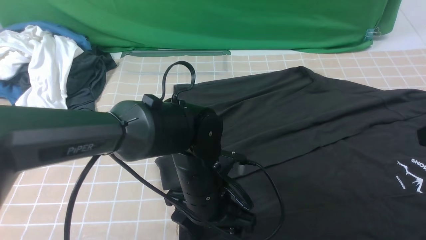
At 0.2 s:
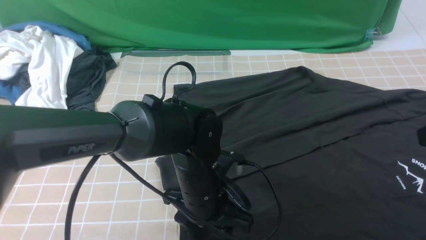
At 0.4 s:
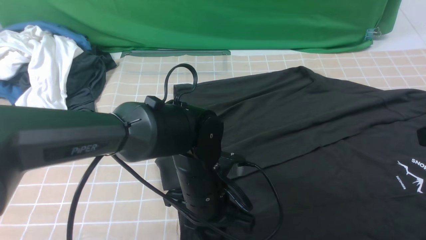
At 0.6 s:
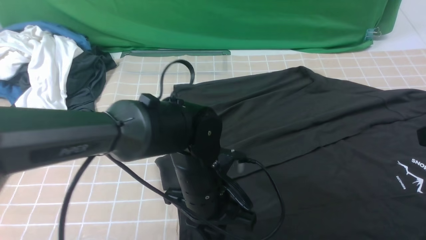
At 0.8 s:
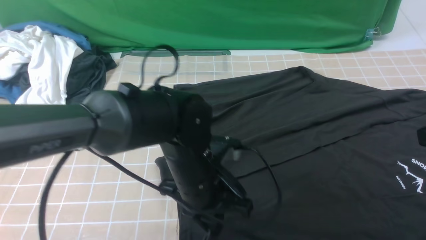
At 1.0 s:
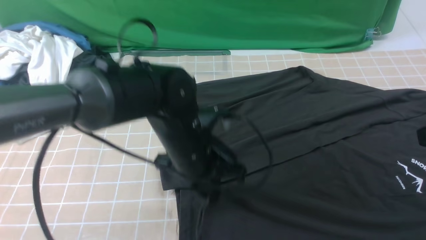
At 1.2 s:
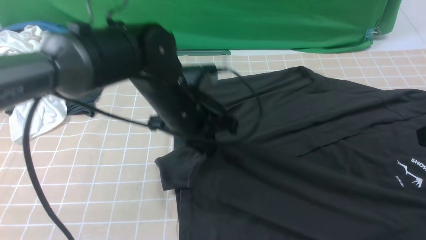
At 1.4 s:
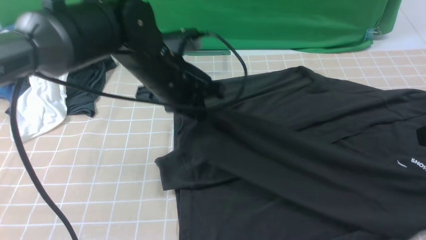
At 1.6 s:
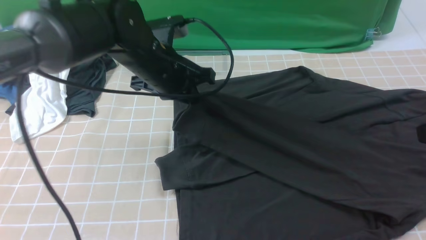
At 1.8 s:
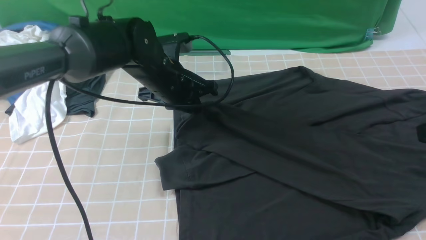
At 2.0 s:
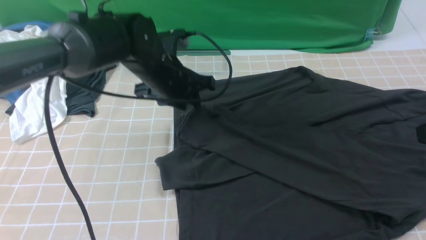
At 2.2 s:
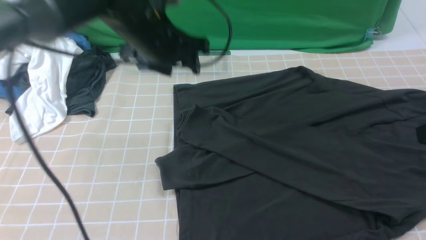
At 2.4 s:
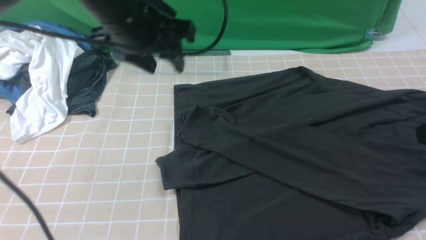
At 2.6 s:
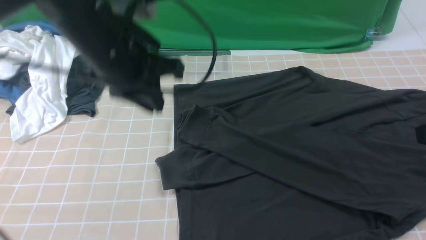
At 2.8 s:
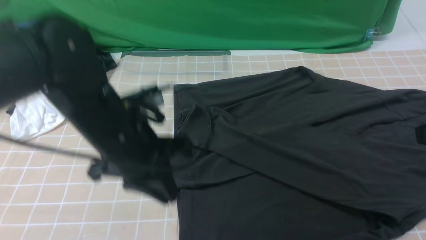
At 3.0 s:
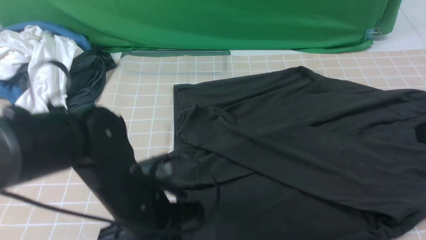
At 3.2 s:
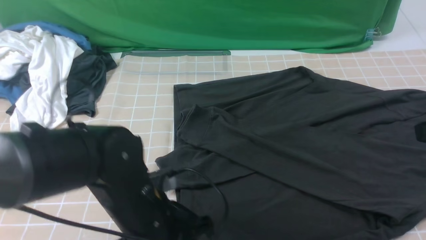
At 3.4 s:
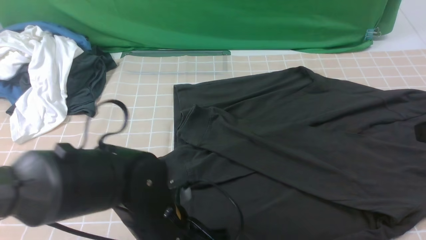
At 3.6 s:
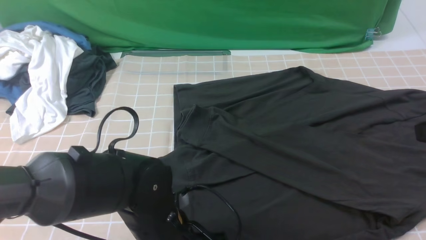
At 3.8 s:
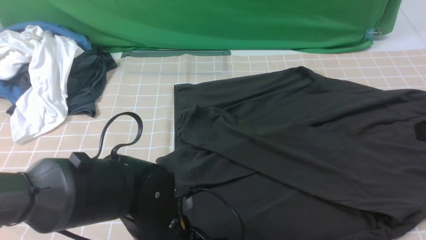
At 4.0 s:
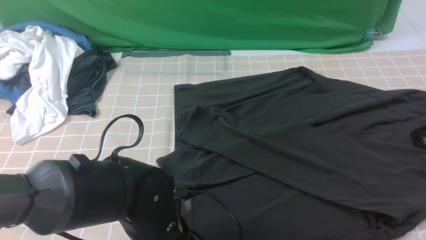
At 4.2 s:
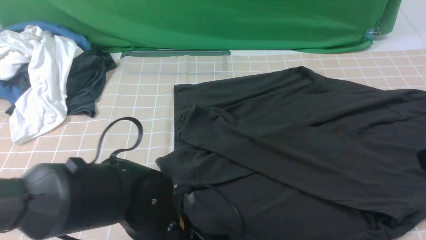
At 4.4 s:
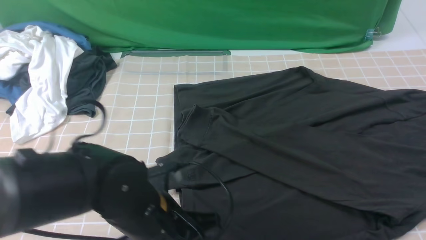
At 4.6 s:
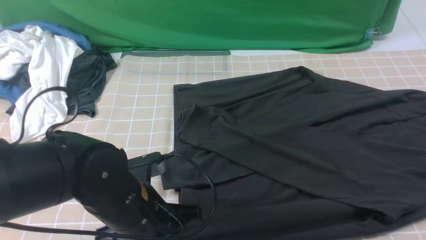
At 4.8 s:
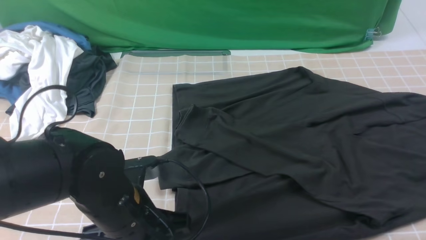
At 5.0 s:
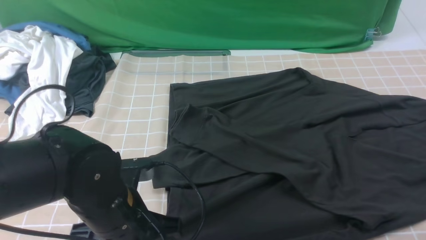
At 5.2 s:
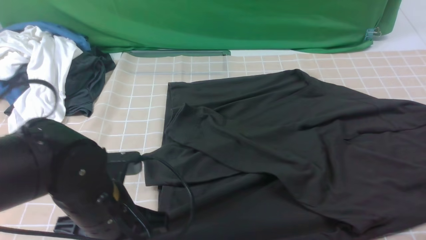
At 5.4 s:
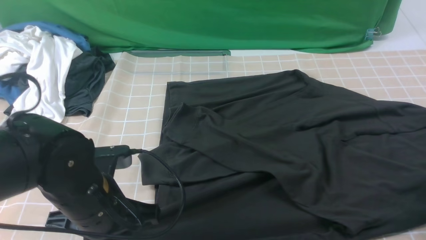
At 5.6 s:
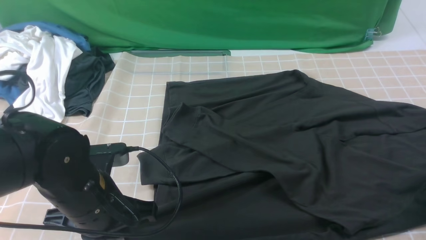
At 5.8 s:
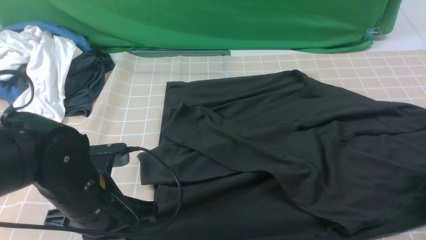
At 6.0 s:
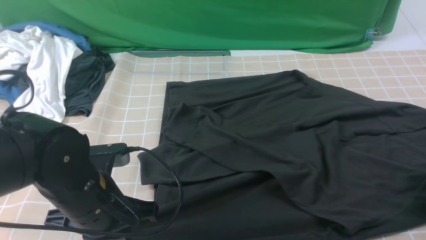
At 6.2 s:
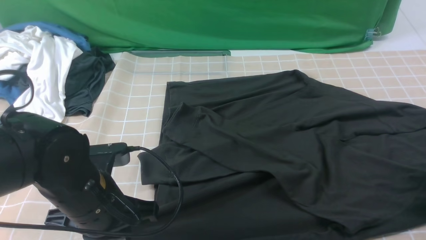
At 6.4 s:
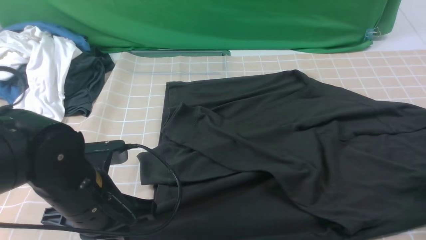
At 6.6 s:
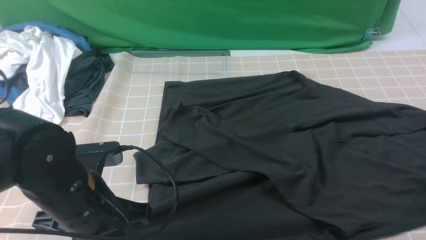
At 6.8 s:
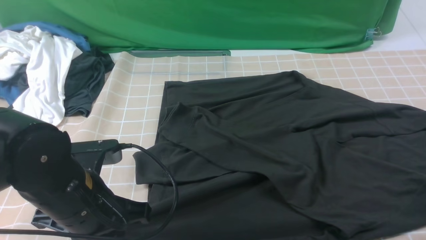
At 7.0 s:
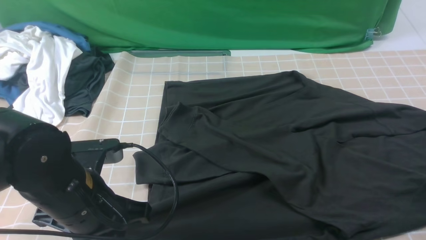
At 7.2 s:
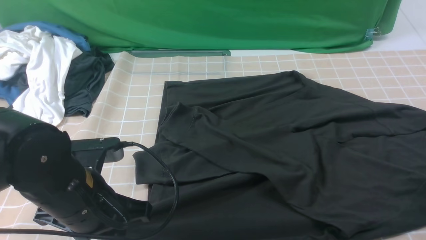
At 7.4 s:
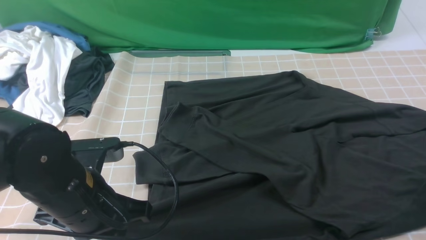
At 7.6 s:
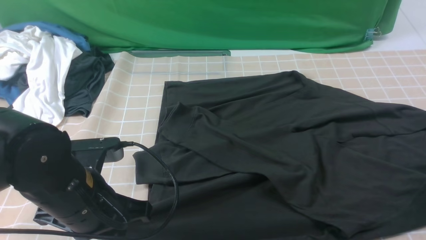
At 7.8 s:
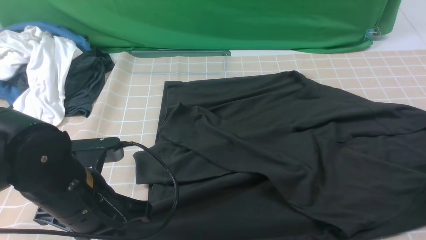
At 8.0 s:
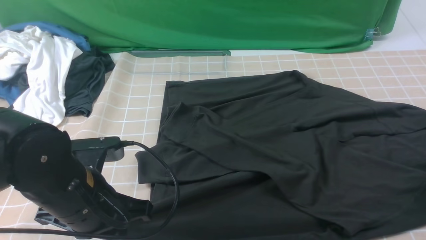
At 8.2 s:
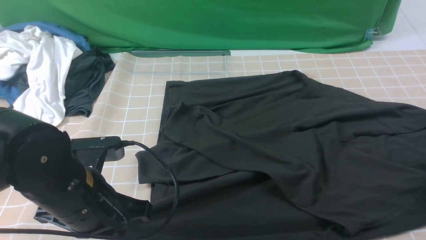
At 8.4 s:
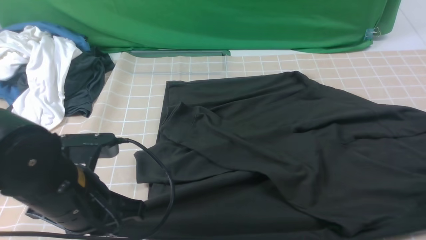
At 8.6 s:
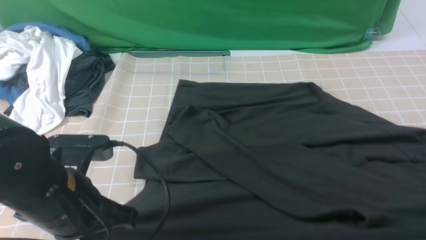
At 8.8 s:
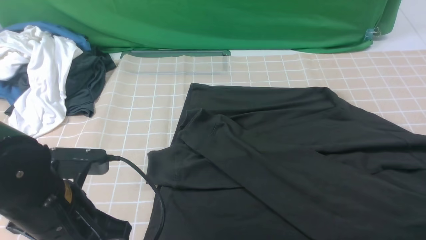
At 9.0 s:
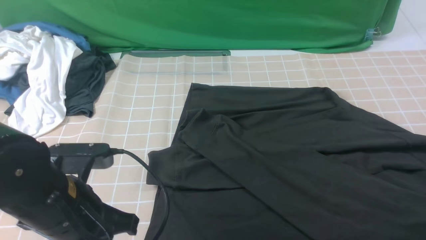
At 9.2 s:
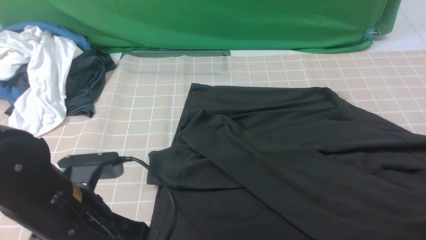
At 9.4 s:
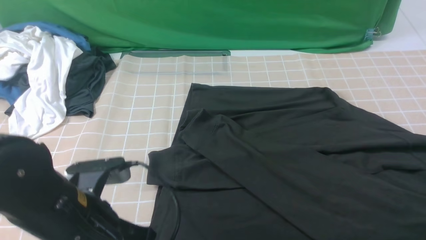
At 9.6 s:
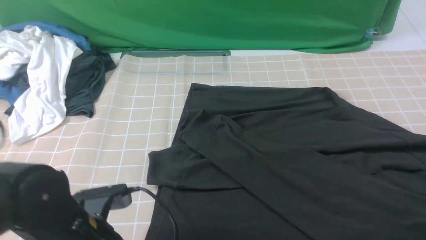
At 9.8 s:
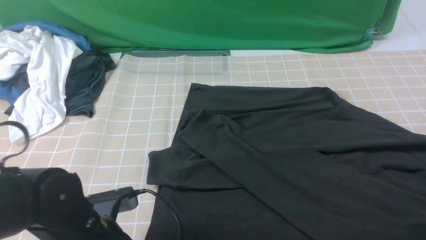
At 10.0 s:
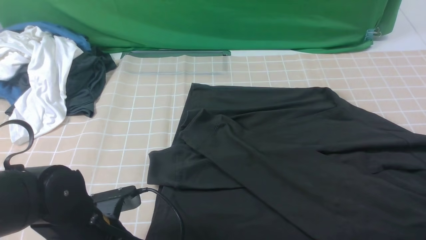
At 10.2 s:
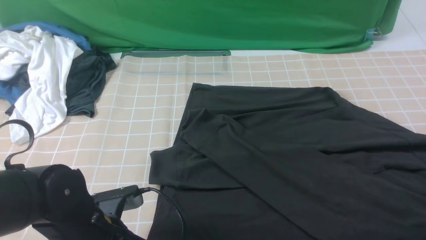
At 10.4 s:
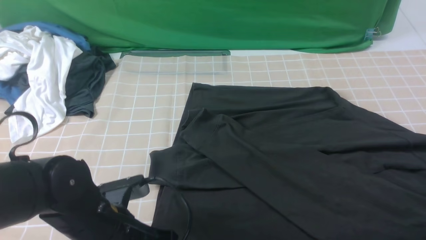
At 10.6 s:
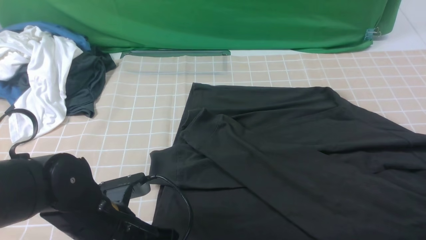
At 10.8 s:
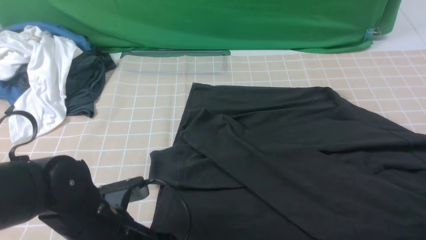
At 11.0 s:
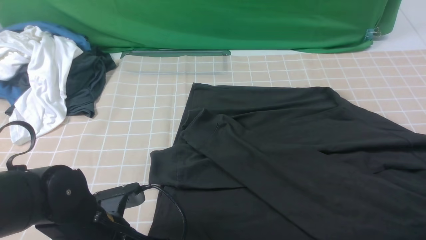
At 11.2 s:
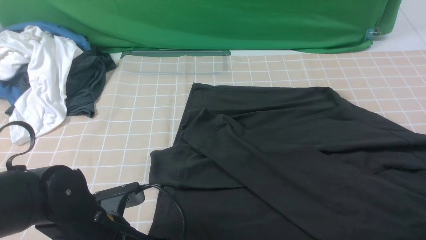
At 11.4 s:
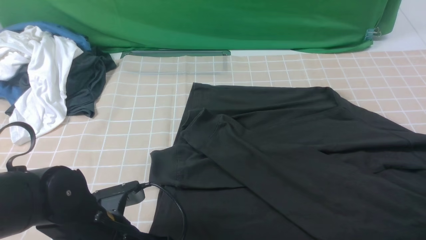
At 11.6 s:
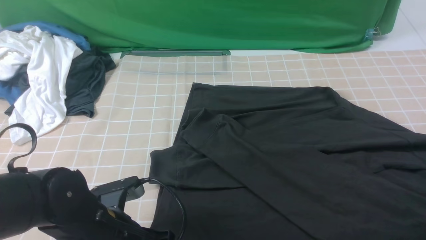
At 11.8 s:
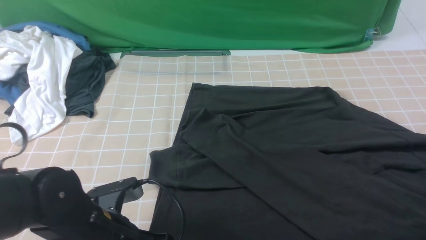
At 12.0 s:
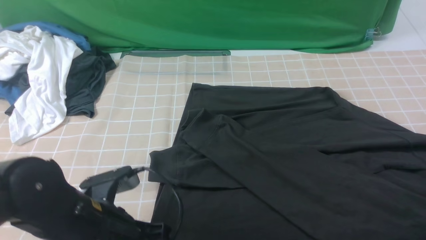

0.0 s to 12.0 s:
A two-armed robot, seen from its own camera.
Step, 0.6 to 1.8 s: use the left arm to drag and drop the cuff onto the cuff closest to the left arm.
Step, 2.0 to 11.8 s: use both arms simultaneously to clamp the lower edge of the clothing fabric.
0.0 to 1.6 s: The left gripper moves forward, upward and to the left, roughly 20 cm, and closes up.
1.6 to 3.0 s: The left gripper shifts some 15 cm backward.
3.0 to 4.4 s: The right gripper opens its fingers; the left gripper opens, then closes again.
4.4 to 6.0 s: The right gripper is displaced downward, to the right and forward by some 20 cm; the left gripper is displaced to the left by about 5 cm.
6.0 to 7.6 s: The right gripper ends up some 5 cm from where it was, and closes, then reopens.
7.6 to 9.0 s: The right gripper goes approximately 5 cm backward, and closes.
9.0 to 10.4 s: The left gripper heads downward, covering approximately 5 cm, and opens up.
10.4 to 12.0 s: The left gripper closes.

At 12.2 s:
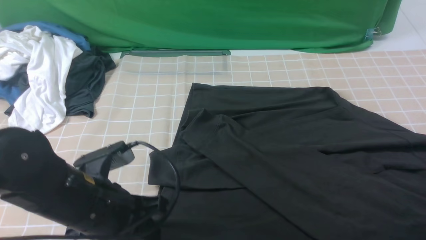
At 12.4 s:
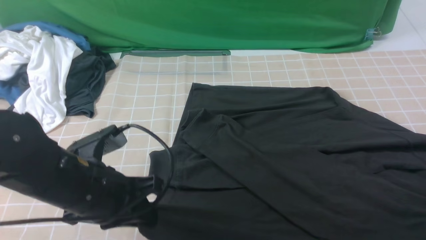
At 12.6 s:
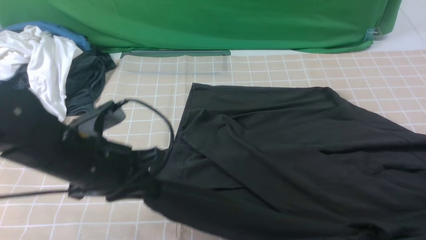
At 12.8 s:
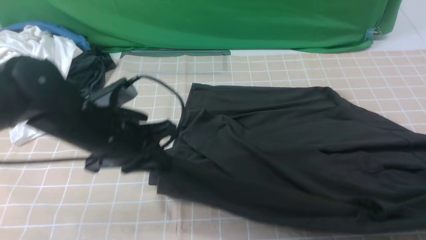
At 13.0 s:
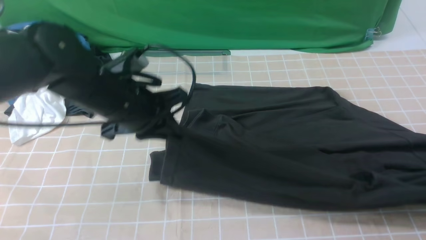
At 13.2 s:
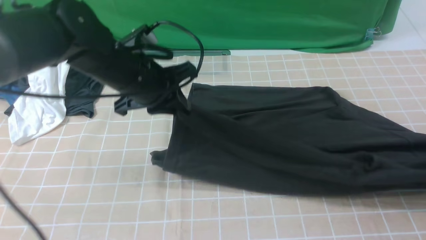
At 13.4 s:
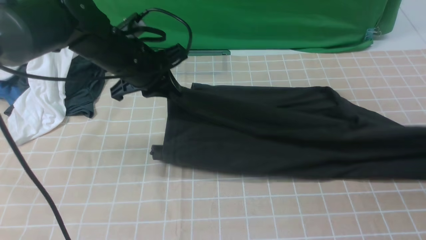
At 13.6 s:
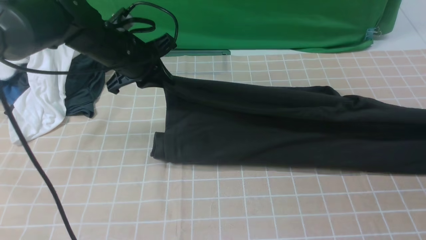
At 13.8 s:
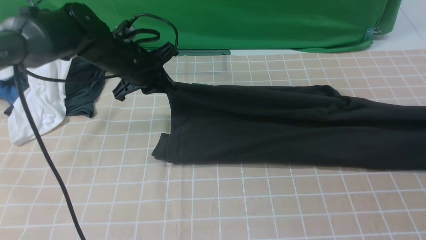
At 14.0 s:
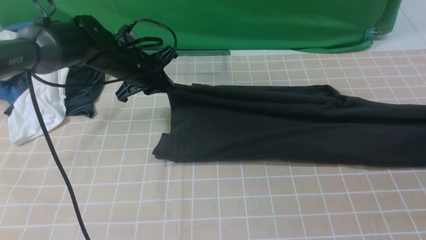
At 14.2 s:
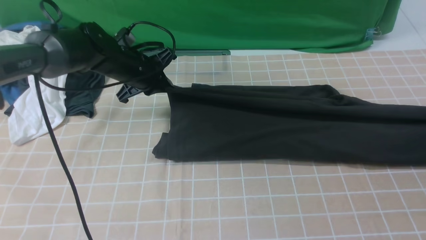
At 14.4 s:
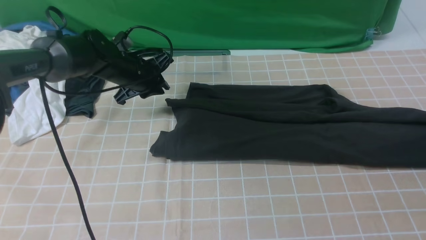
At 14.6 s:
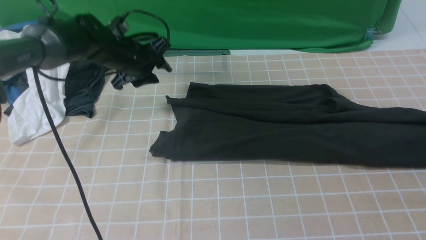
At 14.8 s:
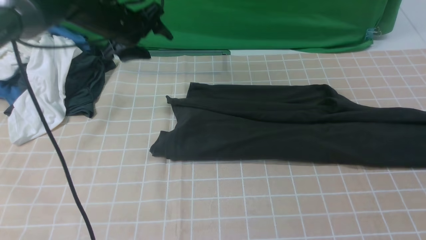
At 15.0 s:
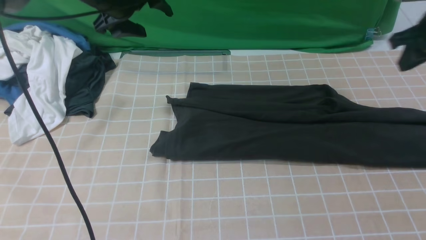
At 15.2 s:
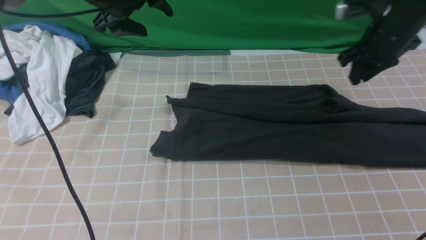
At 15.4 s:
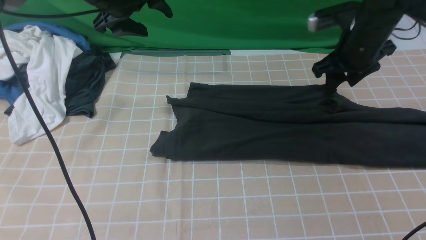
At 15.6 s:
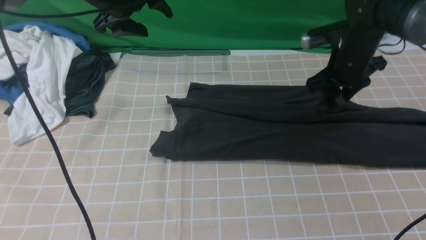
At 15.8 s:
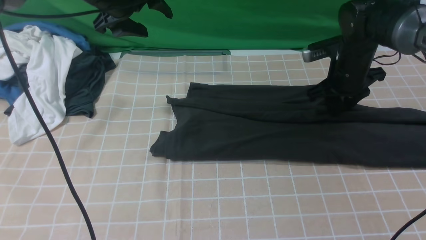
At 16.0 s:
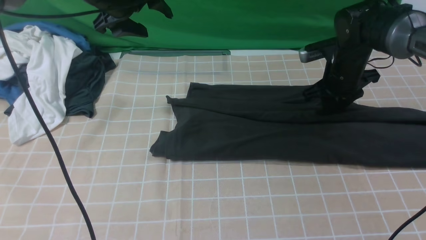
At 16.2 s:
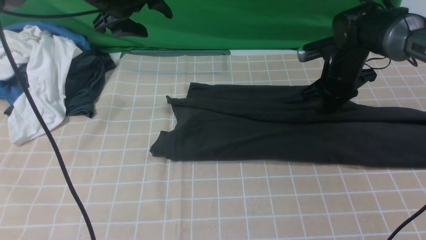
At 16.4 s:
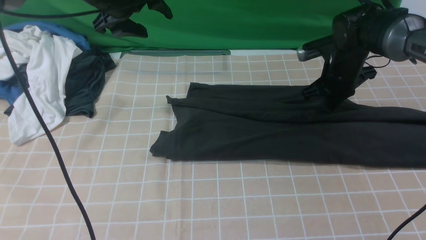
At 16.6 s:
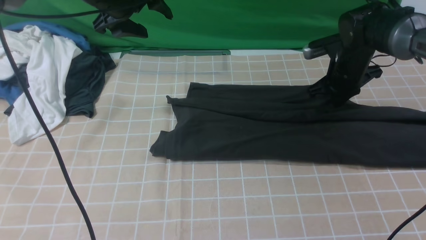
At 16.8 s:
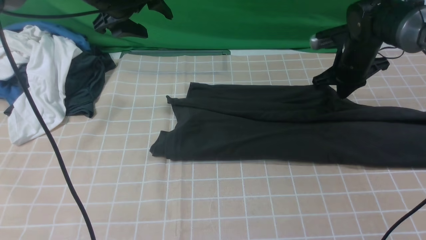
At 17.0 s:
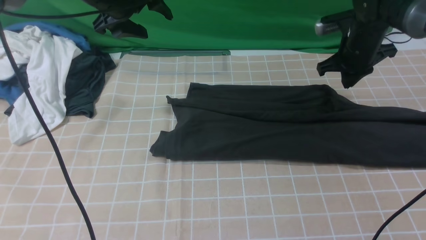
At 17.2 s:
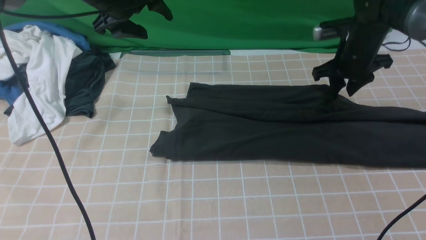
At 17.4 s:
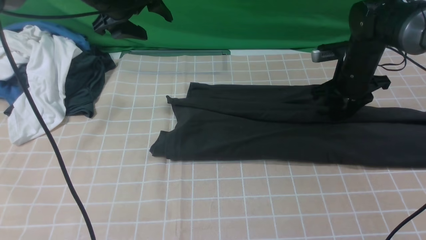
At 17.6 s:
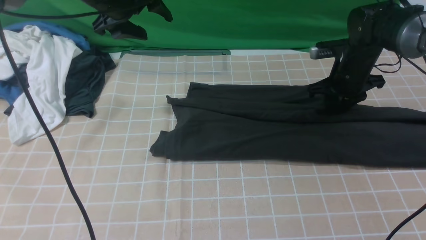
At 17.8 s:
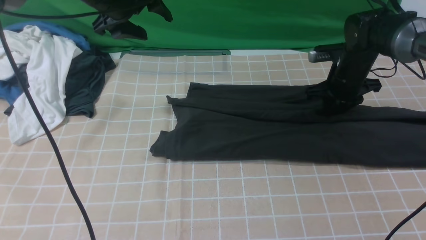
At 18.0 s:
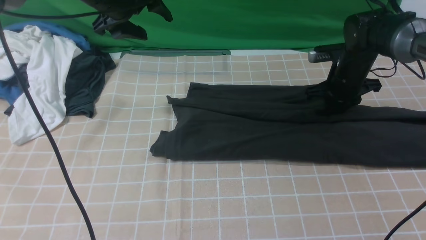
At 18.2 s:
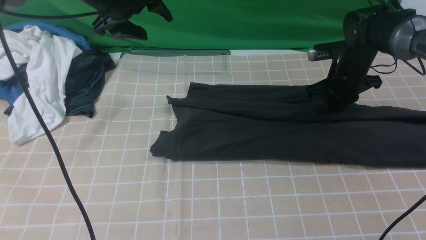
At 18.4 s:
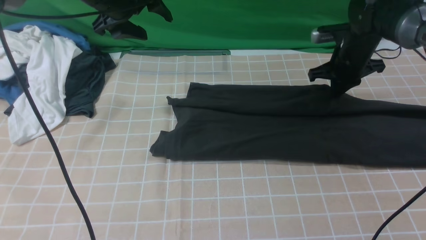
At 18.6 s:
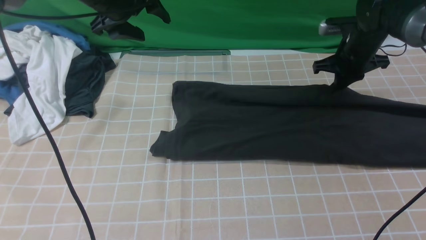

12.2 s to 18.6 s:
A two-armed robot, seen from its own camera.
12.2 to 13.8 s: The right gripper moves forward, approximately 10 cm, while the left gripper is displaced forward by approximately 25 cm.
13.8 to 15.4 s: The right gripper goes approximately 25 cm to the left, and opens; the left gripper heads upward, covering about 10 cm, and opens its fingers.
15.4 to 17.0 s: The right gripper ends up approximately 5 cm from where it was.
17.0 to 18.6 s: The grippers make only small movements.
